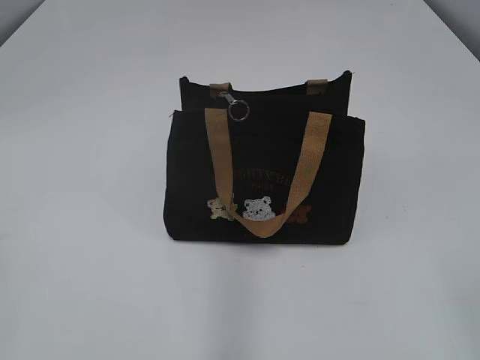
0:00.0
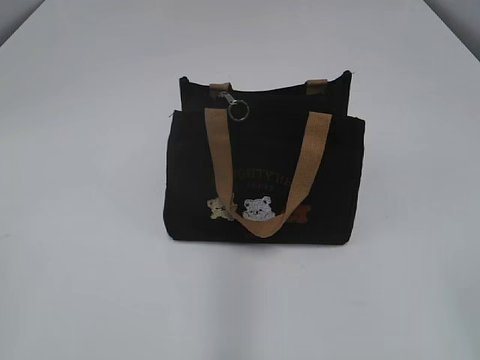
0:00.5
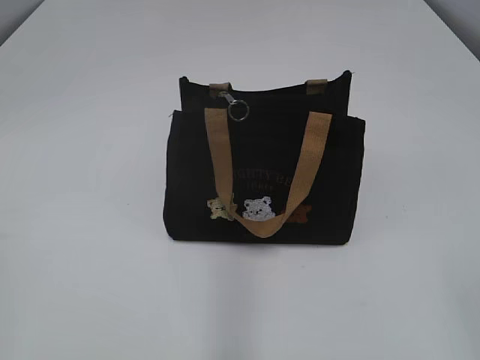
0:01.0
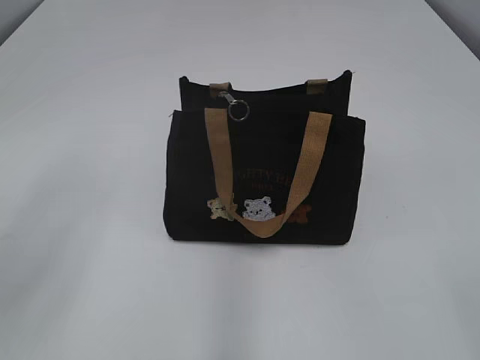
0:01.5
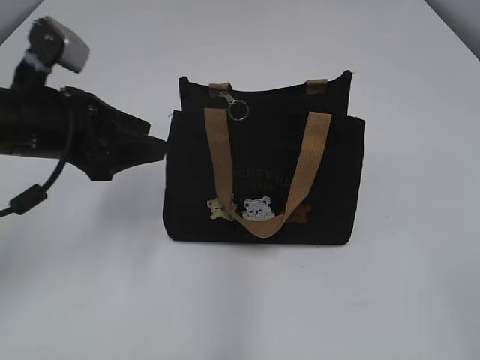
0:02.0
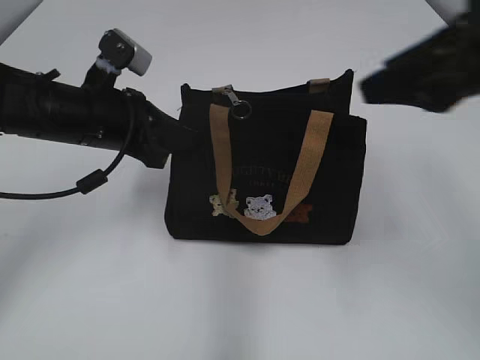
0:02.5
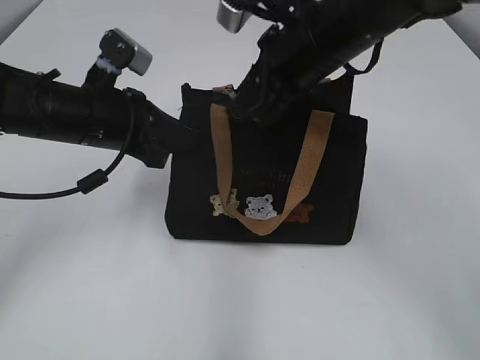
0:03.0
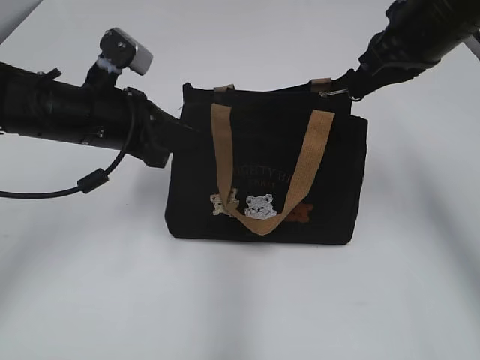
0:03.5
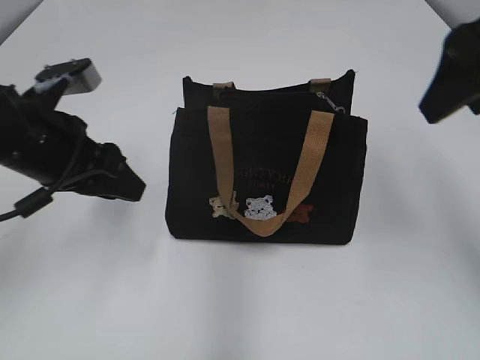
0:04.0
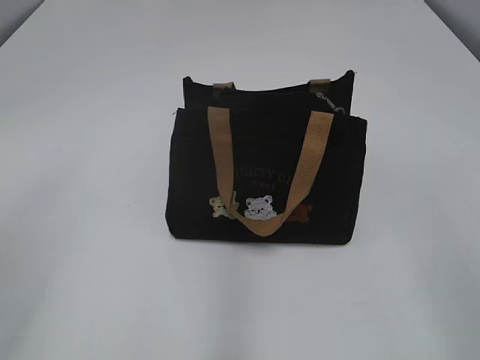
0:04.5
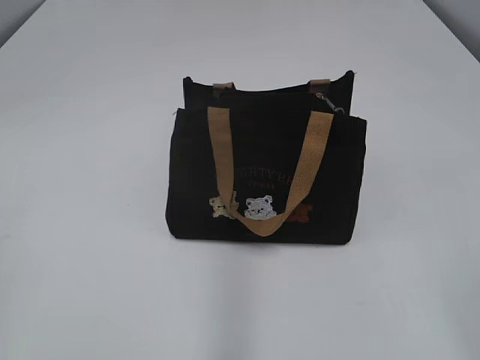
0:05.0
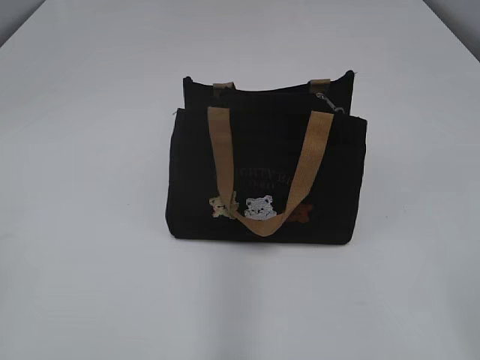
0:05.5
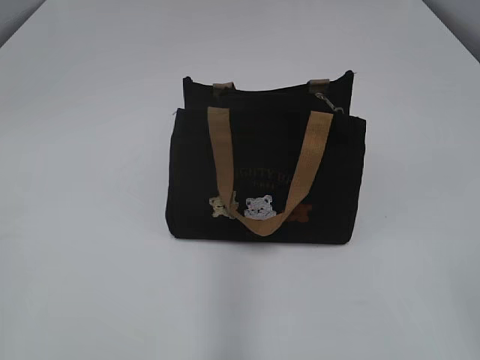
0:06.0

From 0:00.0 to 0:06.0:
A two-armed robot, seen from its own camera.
Step, from 0:00.0 to 0:03.5: Pull open the zipper with your right hand.
From 0:02.0 to 0:04.0: The right gripper shifts about 30 cm forward, and closes, then reopens. Meanwhile the left gripper closes, then opens again.
From 0:04.0 to 0:06.0: The right gripper shifts about 30 cm backward. The left gripper heads backward and to the left, covering roughly 30 cm, and closes up.
